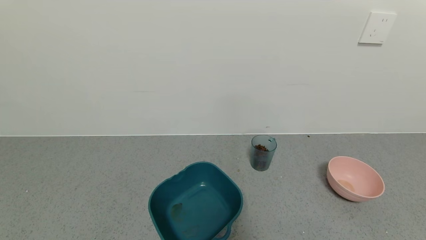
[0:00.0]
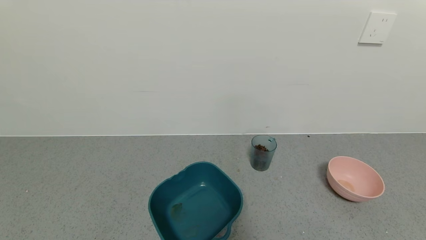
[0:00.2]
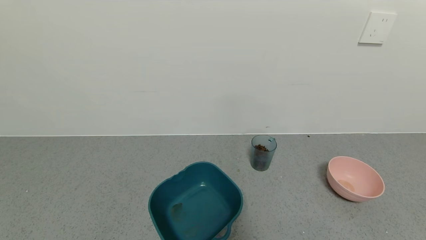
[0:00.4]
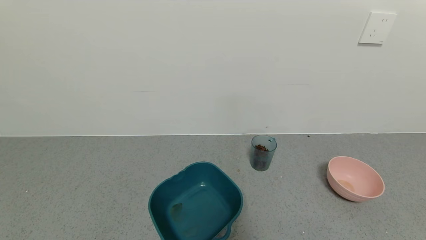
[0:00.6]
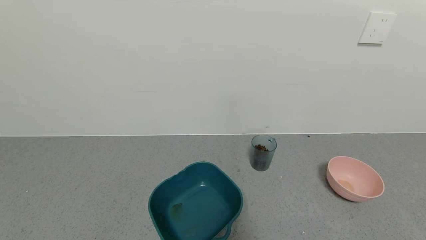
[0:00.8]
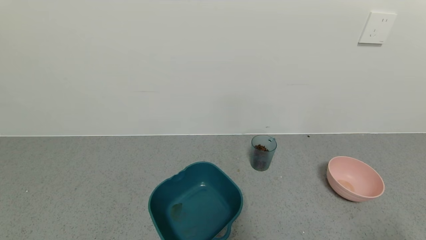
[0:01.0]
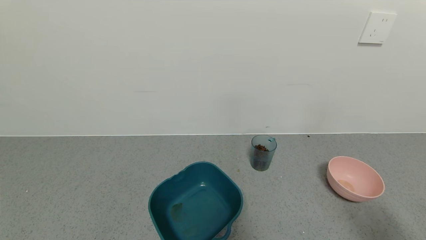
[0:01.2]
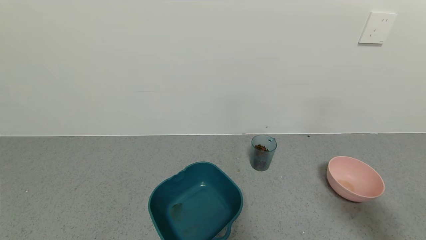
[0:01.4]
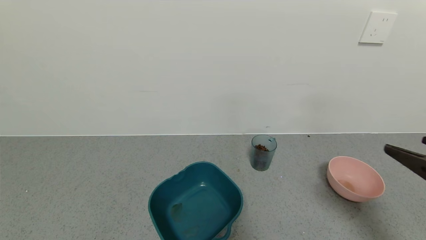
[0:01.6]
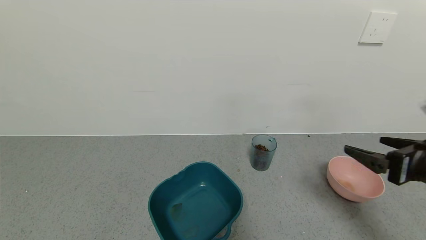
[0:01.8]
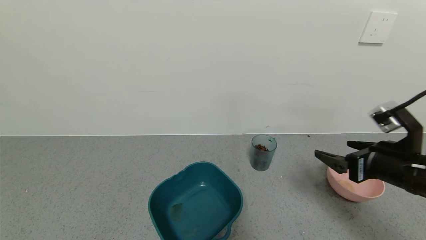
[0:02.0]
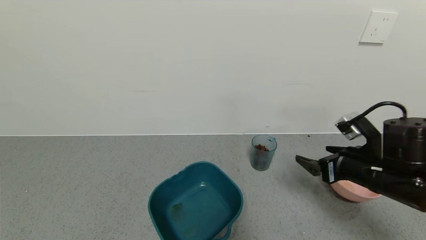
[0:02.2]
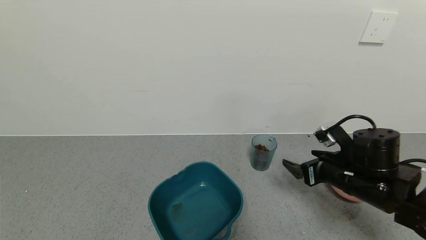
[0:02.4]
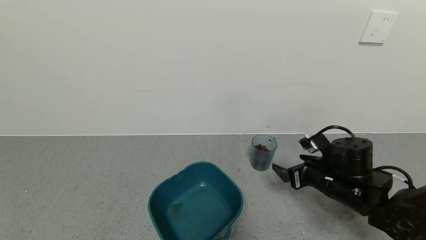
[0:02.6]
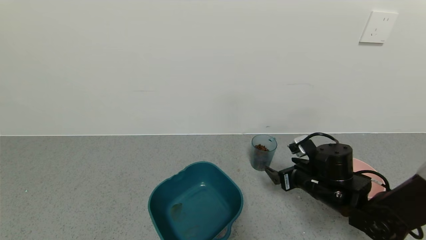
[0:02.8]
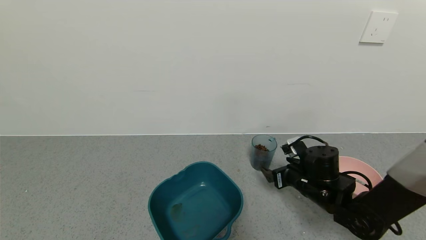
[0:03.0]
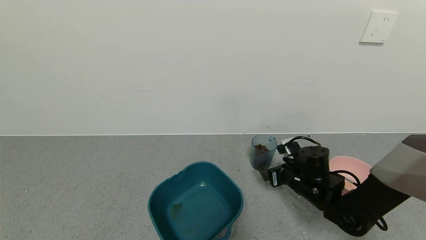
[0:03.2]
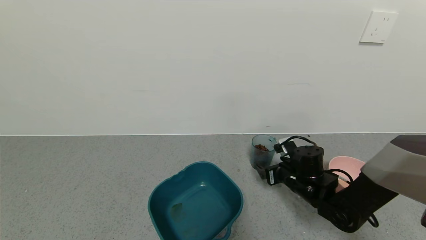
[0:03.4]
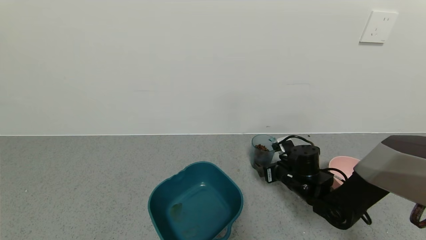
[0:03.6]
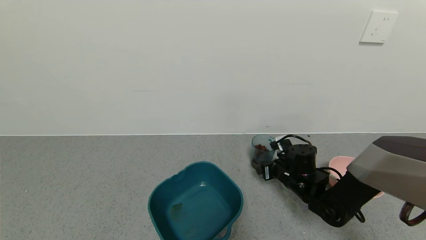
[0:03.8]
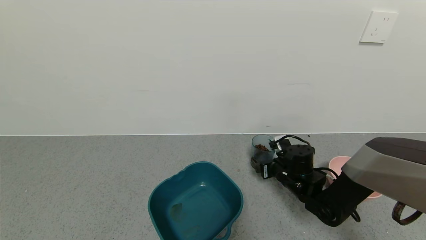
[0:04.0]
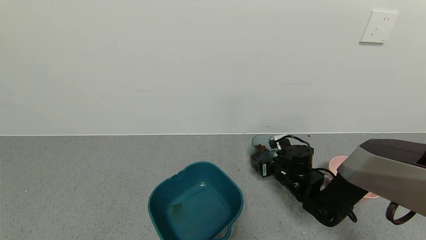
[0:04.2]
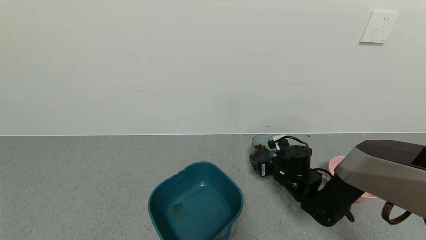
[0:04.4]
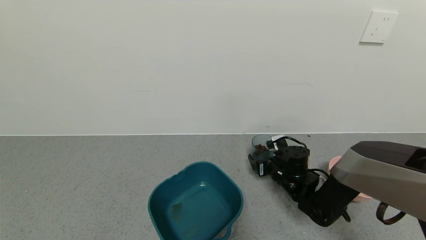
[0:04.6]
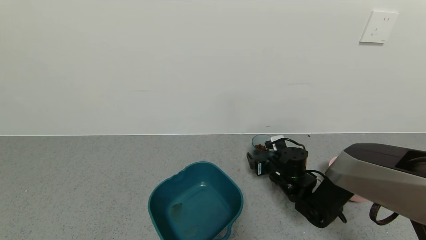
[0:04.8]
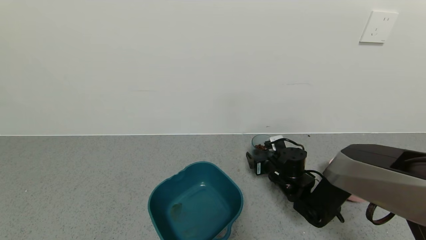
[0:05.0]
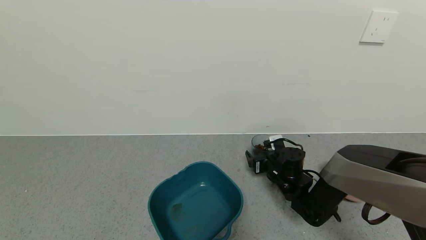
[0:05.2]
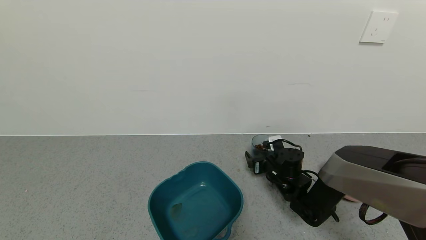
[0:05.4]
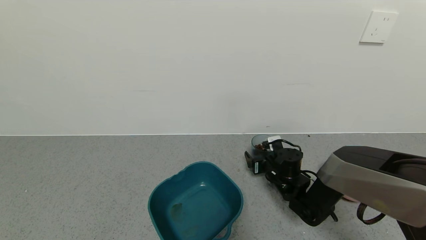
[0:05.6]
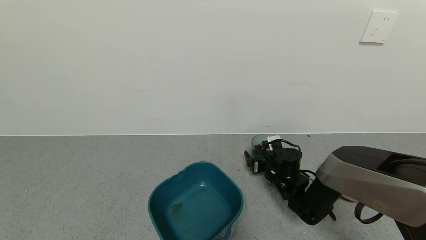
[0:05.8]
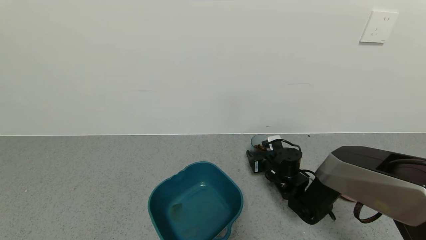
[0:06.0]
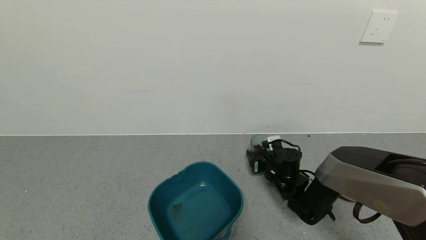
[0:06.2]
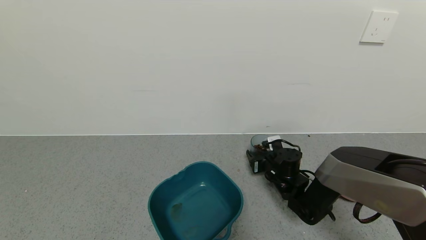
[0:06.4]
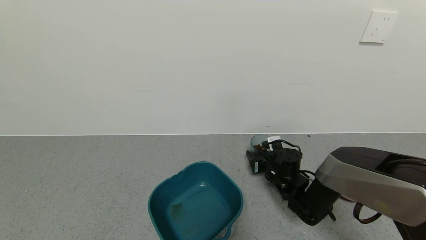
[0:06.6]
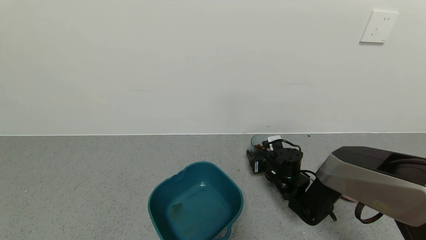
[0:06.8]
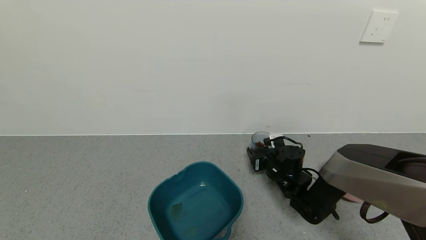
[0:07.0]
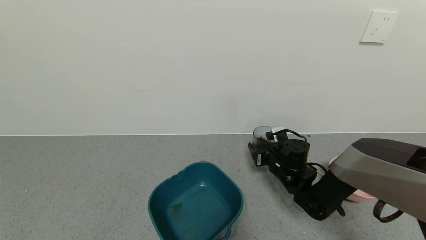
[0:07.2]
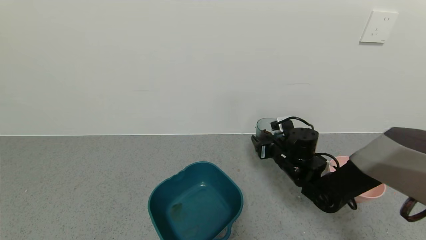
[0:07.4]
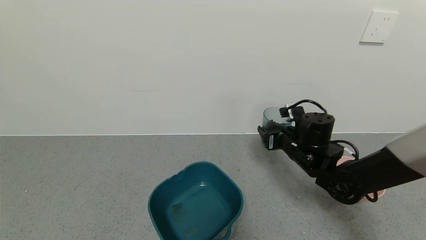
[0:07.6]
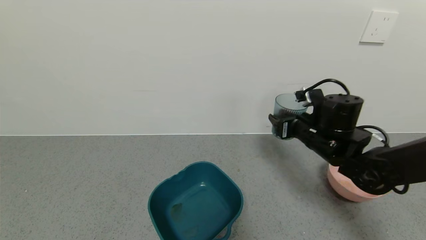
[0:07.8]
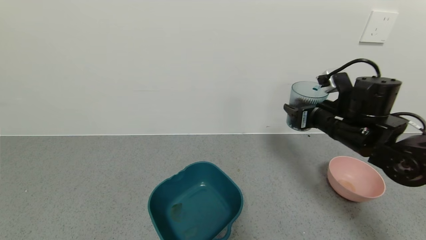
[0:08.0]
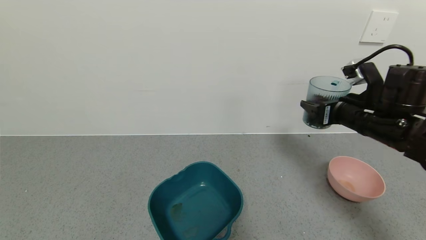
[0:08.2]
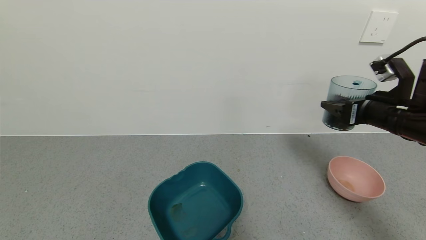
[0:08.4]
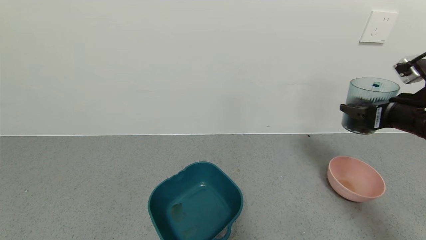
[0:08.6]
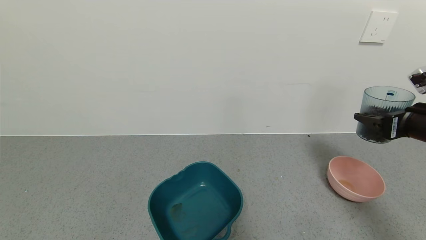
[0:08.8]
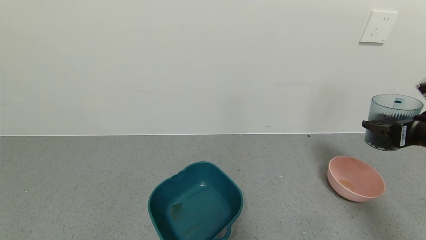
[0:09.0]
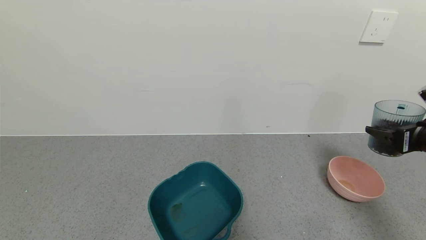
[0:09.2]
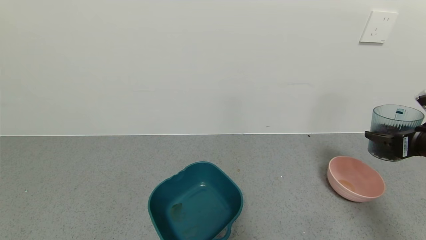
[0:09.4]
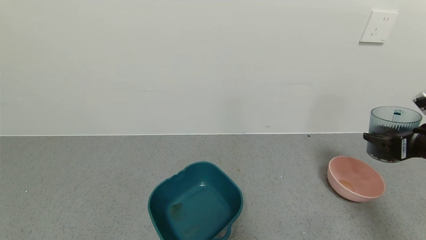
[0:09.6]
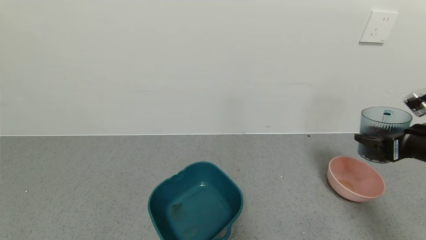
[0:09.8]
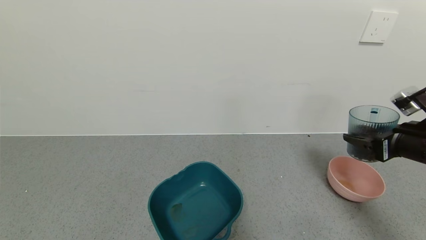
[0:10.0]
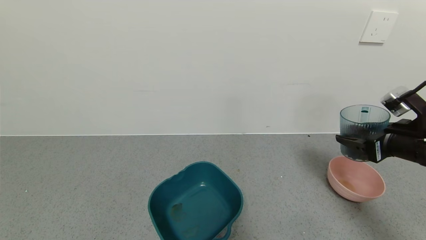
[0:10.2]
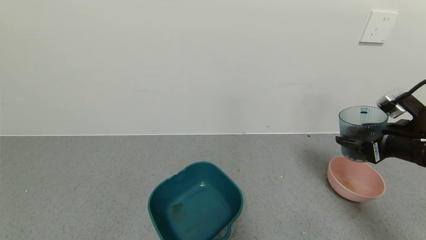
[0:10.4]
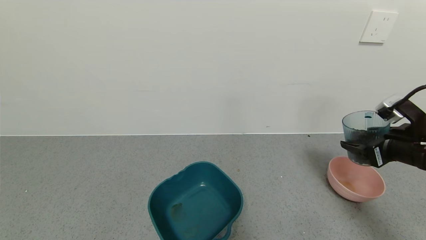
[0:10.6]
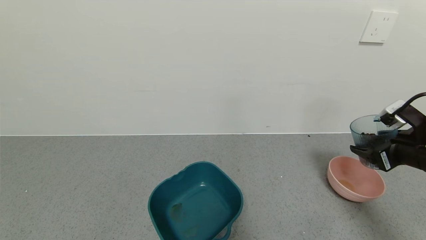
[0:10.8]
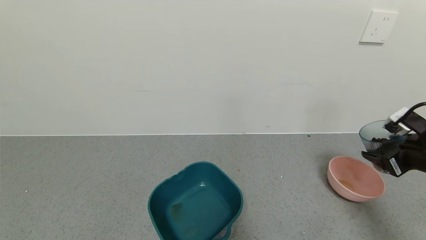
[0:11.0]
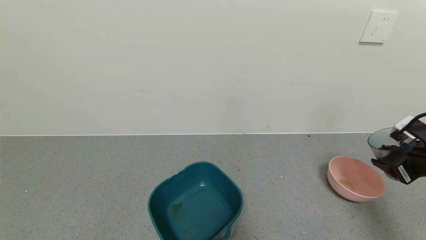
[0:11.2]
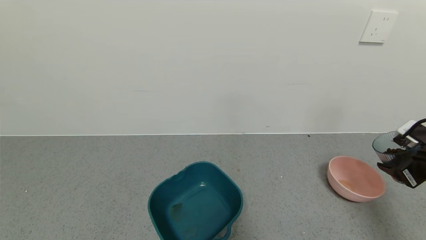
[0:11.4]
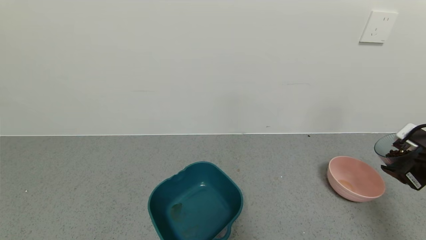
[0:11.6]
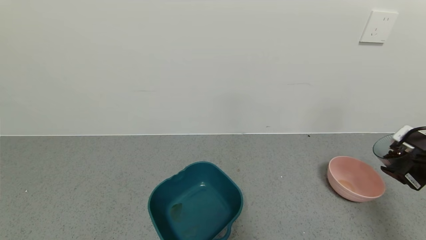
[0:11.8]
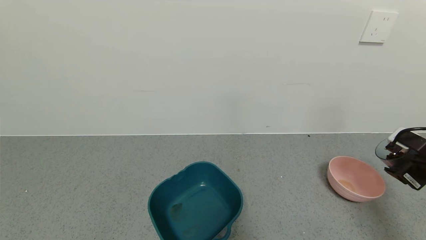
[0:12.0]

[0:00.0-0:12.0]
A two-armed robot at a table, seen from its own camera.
Task of the whole recording: use a gripper to pick up the cup and pour the solid into a bowl or tray.
Step, 0:00.0 to 0:06.6: Grasp the glass of coffee beans with the right gripper.
0:00.0 to 0:01.6: The right gripper is displaced forward and upward by about 20 cm.
0:01.6 to 0:03.0: The right gripper heads forward, downward and to the left, covering some 30 cm.
0:03.0 to 0:04.4: The right gripper goes some 5 cm forward.
0:04.4 to 0:06.0: The right gripper closes up.
0:06.0 to 0:07.6: The right gripper heads upward, covering about 10 cm.
0:07.6 to 0:09.0: The right gripper goes approximately 25 cm to the right, backward and upward.
0:09.0 to 0:10.4: The grippers make only small movements.
0:10.4 to 0:12.0: The right gripper is displaced to the right by some 10 cm.

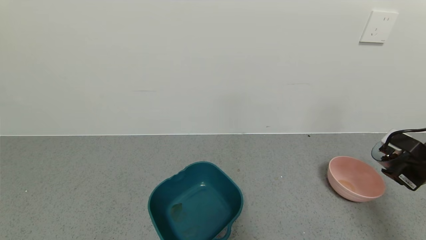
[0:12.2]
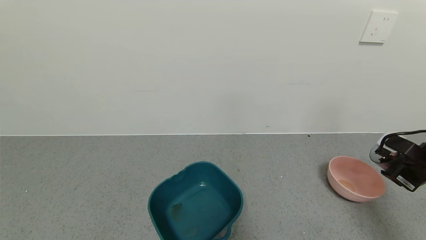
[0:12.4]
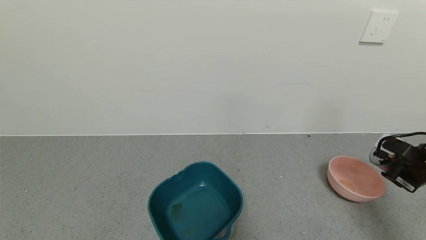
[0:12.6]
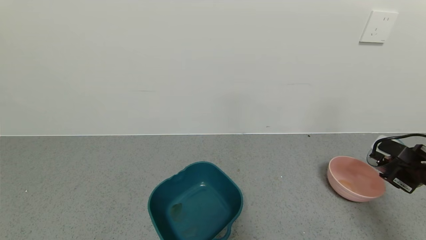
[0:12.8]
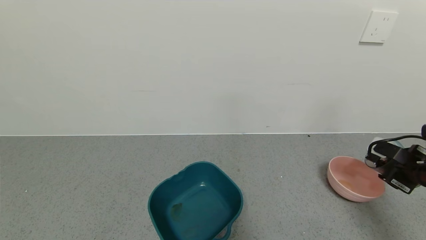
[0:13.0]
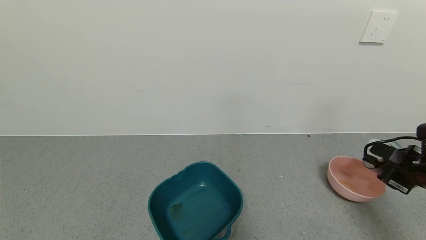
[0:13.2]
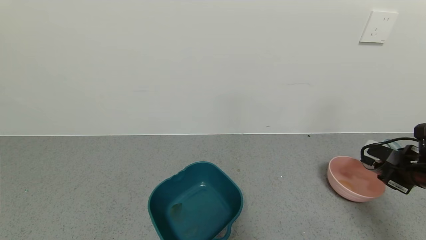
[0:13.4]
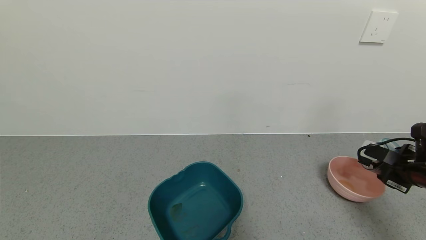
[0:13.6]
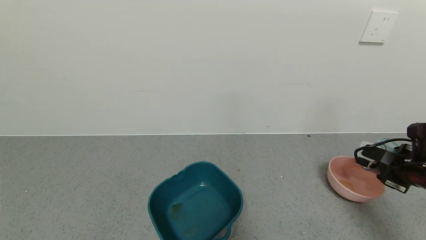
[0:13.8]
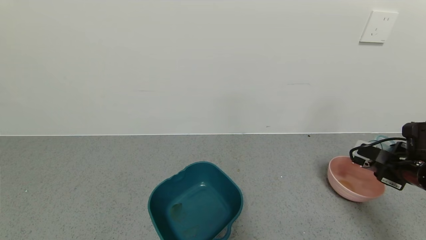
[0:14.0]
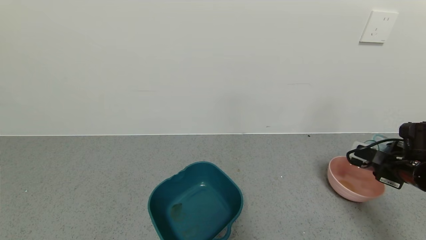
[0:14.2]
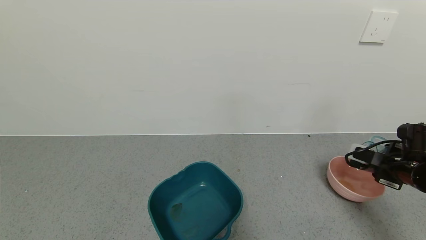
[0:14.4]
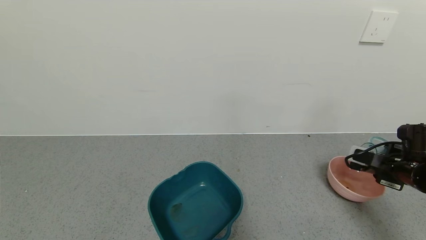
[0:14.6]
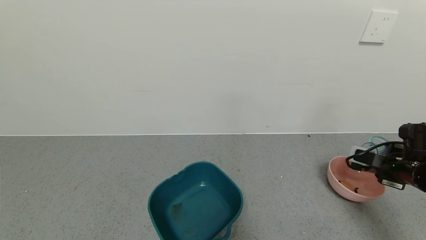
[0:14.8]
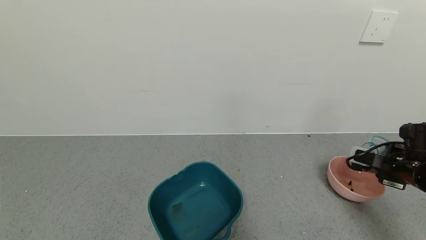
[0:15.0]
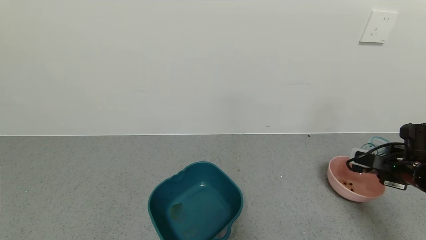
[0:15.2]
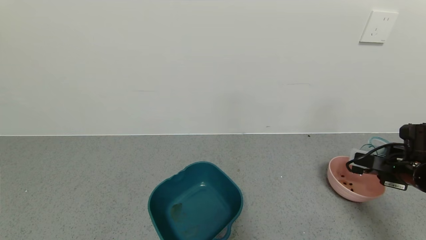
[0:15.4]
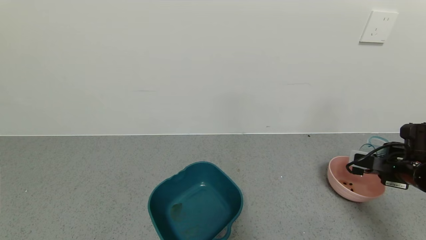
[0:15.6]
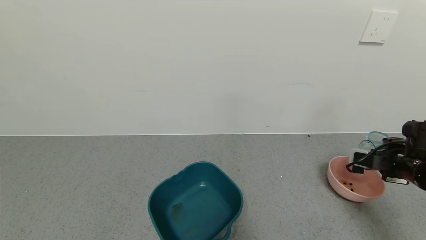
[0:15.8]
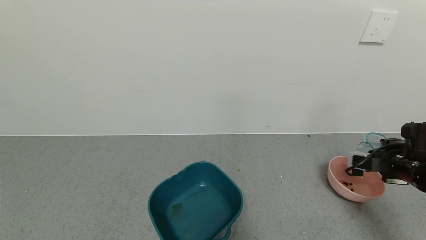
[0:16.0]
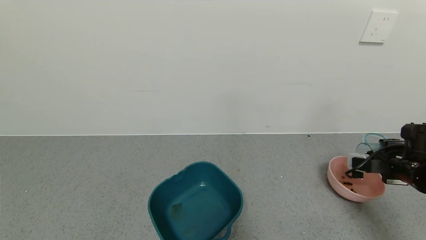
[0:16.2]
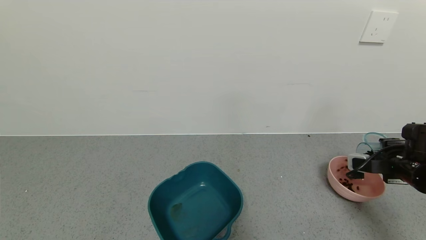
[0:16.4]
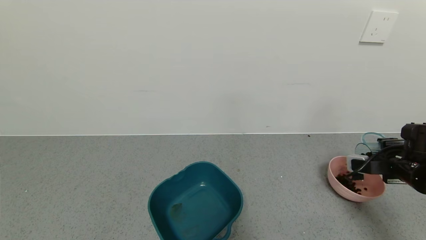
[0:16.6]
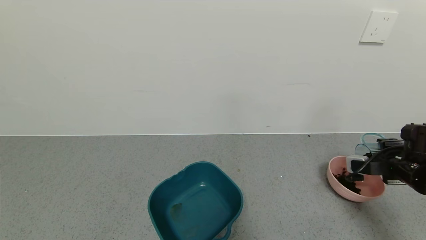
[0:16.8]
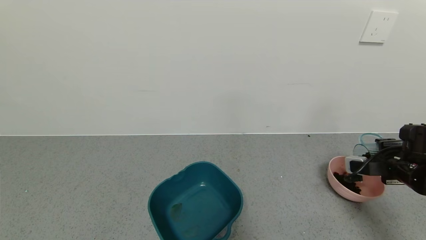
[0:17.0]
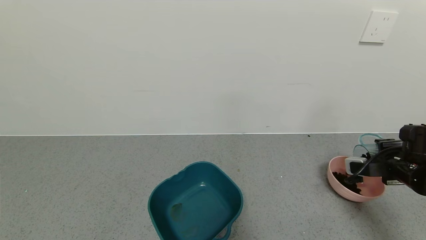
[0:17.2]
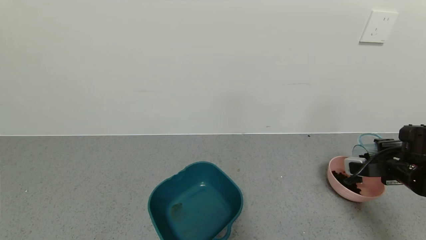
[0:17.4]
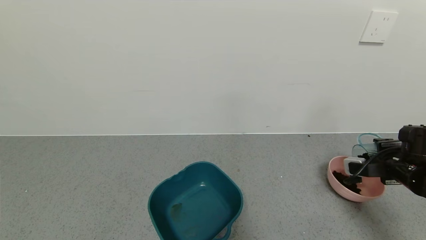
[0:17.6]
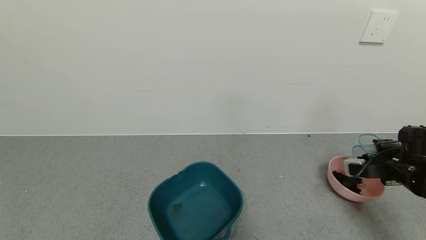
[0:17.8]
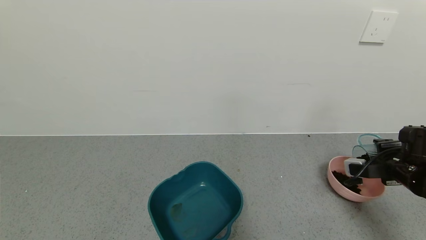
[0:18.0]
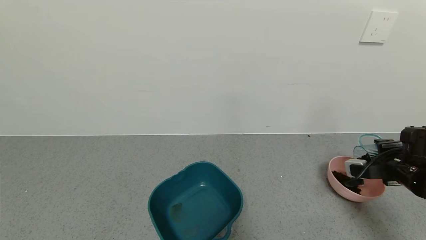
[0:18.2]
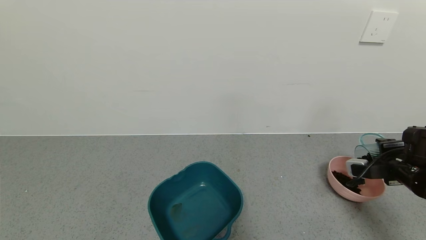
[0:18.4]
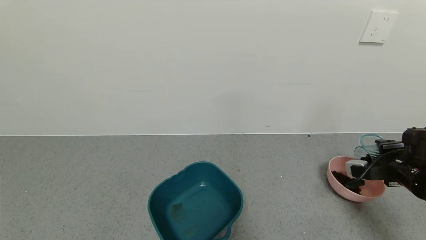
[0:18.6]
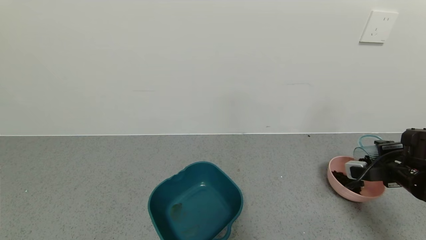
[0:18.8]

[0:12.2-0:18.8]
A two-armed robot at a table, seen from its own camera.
Task of the whole recording: use a gripper to pick up the cup and pour the solid into a bowl or tray.
0:12.2 to 0:13.8: The grippers stay close to where they were, moving slightly.
0:13.8 to 0:15.4: The grippers make only small movements.
0:15.4 to 0:17.2: The grippers stay close to where they were, moving slightly.
0:17.2 to 0:18.8: The two grippers keep their place.
